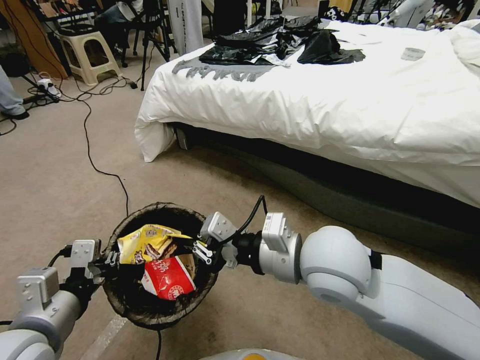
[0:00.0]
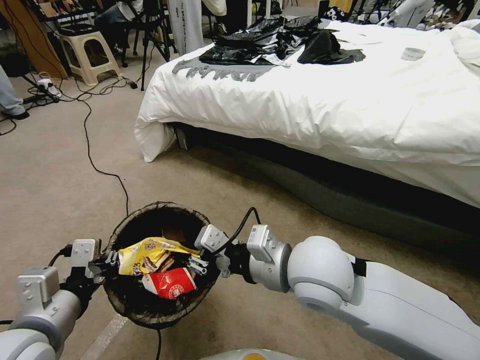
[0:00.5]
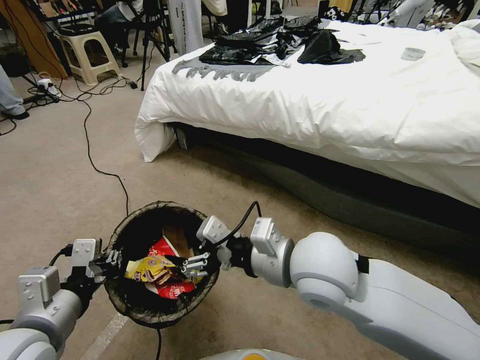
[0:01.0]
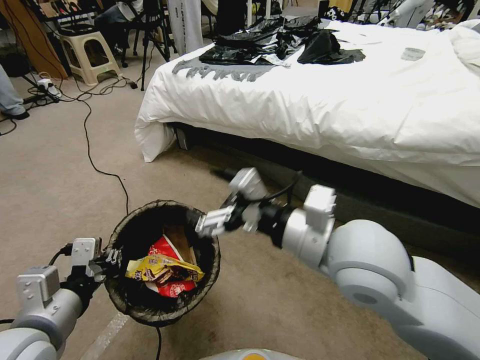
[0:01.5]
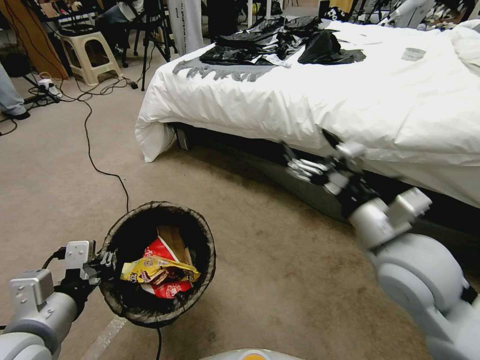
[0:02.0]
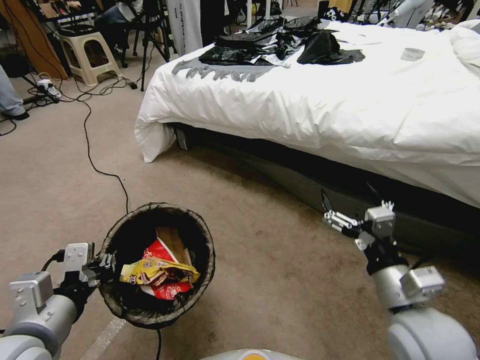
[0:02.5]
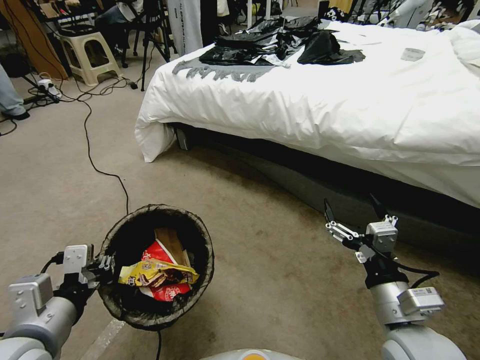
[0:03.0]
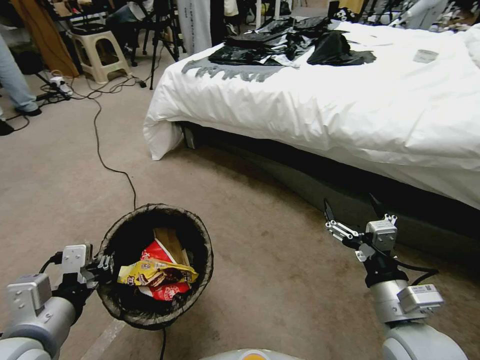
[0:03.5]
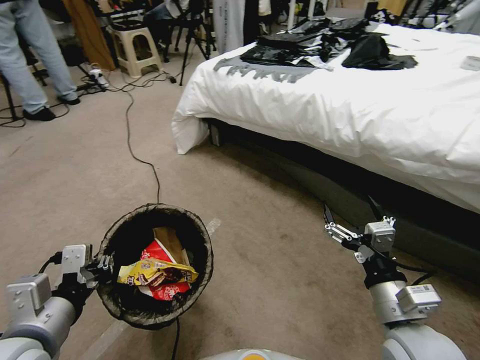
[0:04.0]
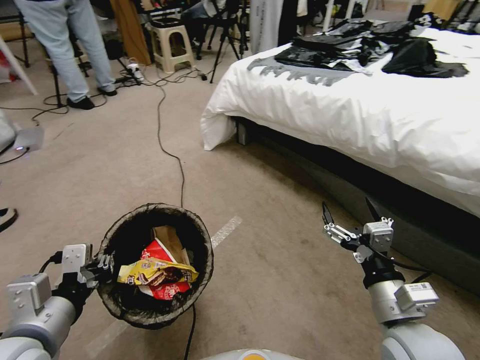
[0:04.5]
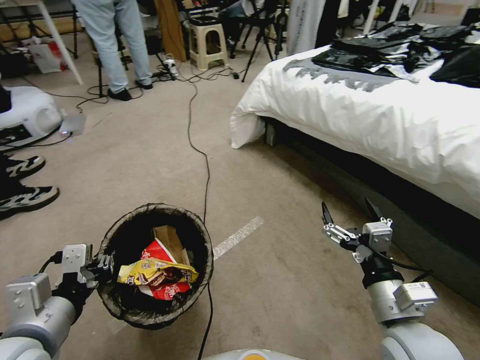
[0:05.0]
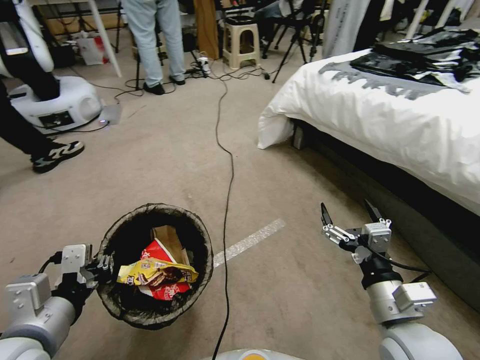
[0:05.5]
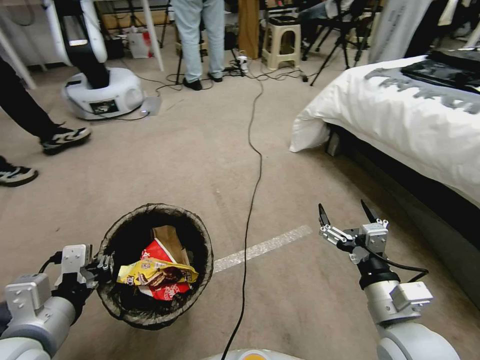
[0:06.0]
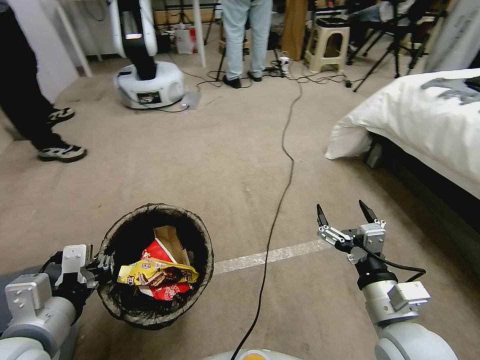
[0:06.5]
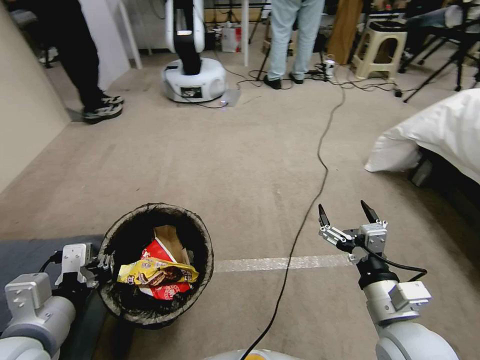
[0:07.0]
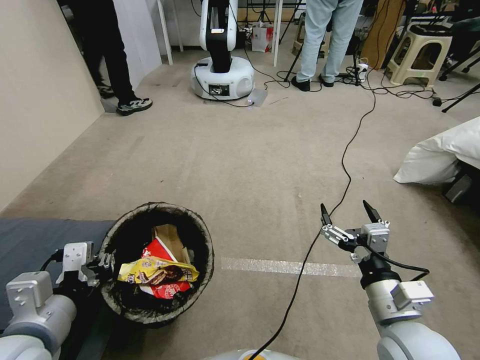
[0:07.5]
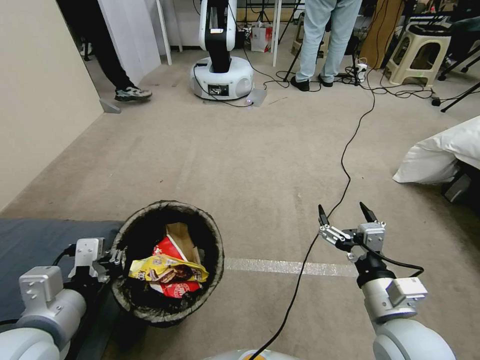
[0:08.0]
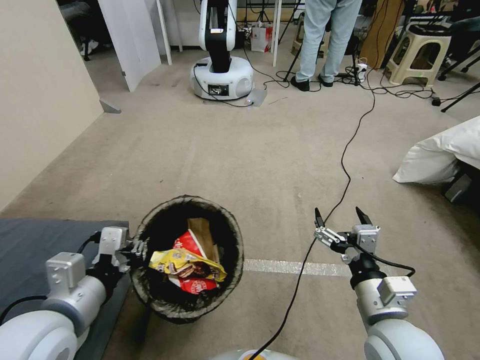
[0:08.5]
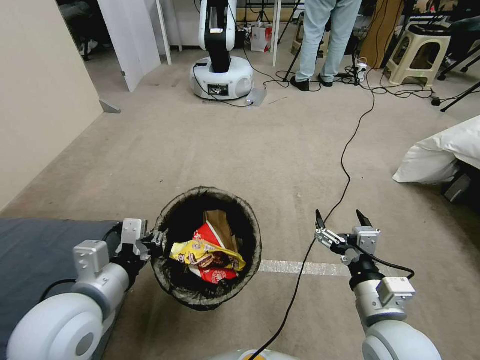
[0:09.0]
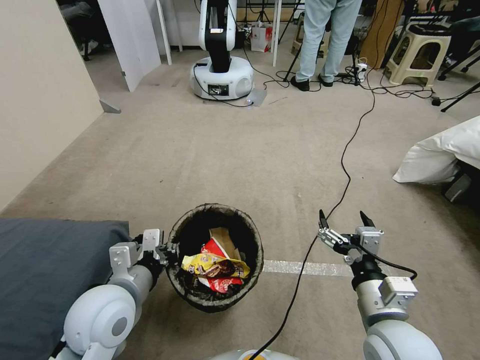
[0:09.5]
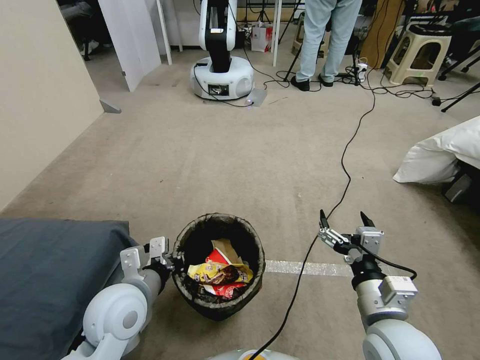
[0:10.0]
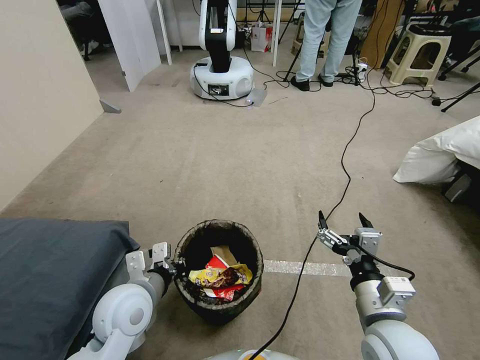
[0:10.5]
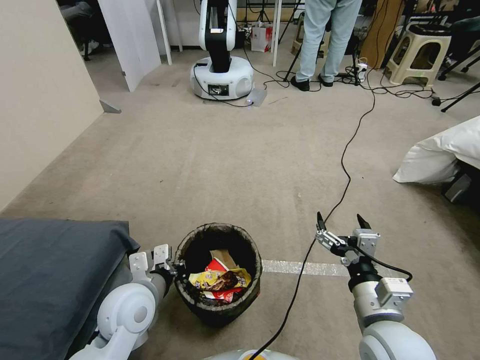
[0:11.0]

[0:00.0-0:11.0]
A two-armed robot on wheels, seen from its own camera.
Task of the whole recording: Pick up the trash bin, then pick up the garbage from the floor and place it into the trash bin.
0:00.0 to 0:02.0: The right gripper is displaced to the right by approximately 10 cm, and opens up.
0:02.0 to 0:03.5: The right gripper heads downward and backward, covering approximately 15 cm.
0:07.5 to 0:09.0: The left gripper moves forward, about 5 cm.
0:09.0 to 0:11.0: The left gripper shifts some 10 cm downward and forward.

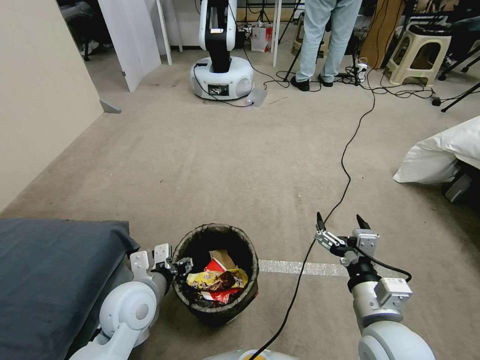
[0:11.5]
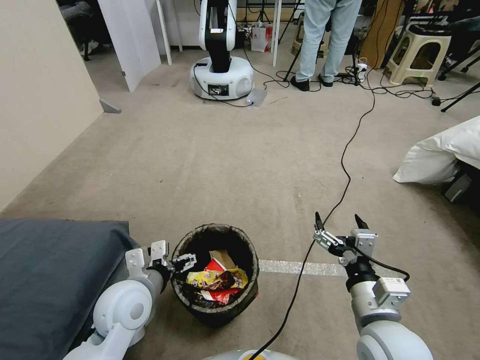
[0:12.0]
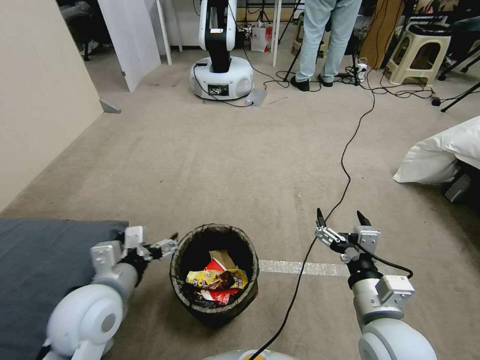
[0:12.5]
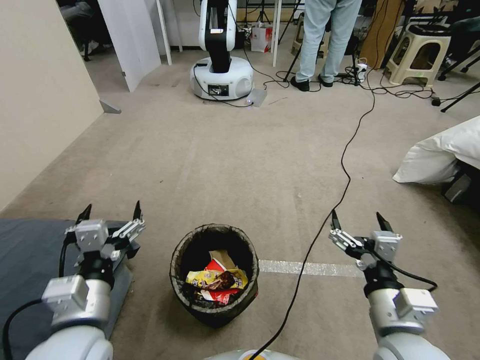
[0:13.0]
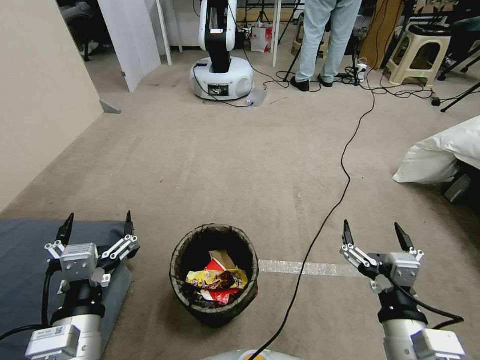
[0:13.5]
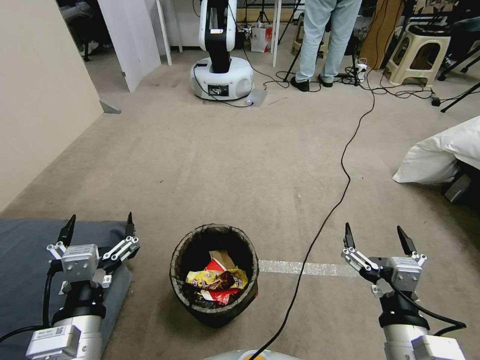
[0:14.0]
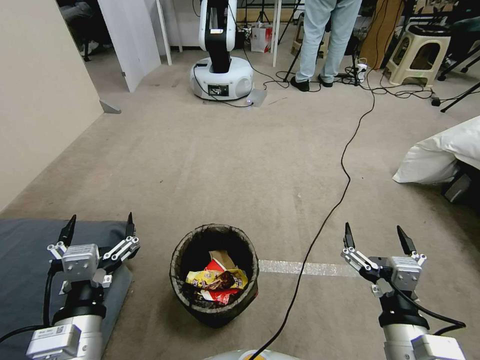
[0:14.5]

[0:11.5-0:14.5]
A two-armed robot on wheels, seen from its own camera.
Task of the whole recording: Pick up the trash bin, then pick up the garbage from the floor and place it into the trash bin.
0:11.5 to 0:13.0: The left gripper heads upward and backward, covering some 10 cm, and opens up.
0:13.0 to 0:14.5: Both grippers travel together backward, roughly 5 cm.
